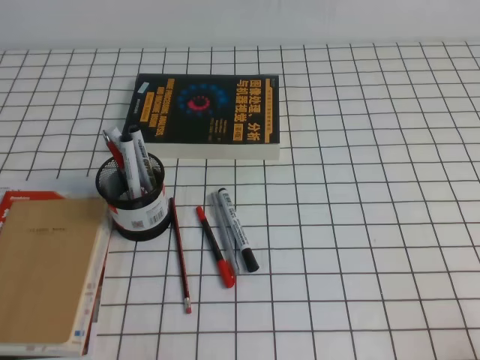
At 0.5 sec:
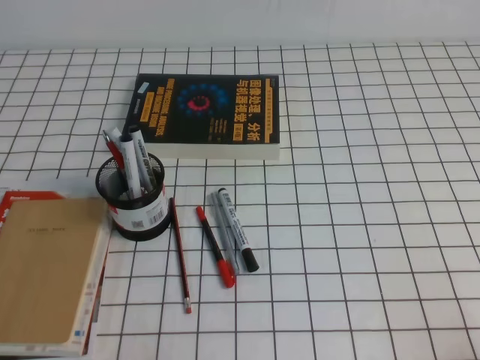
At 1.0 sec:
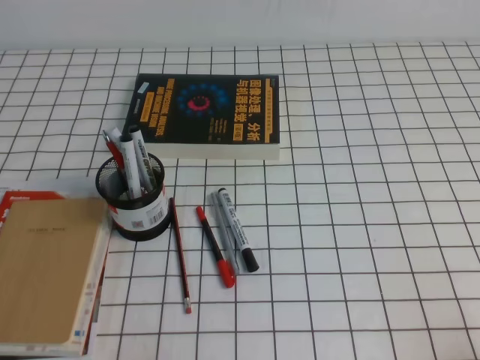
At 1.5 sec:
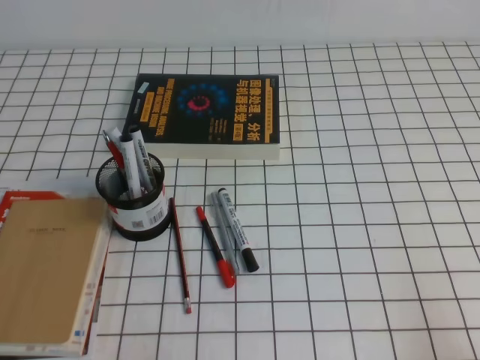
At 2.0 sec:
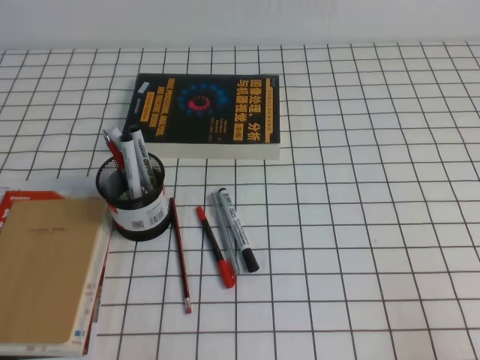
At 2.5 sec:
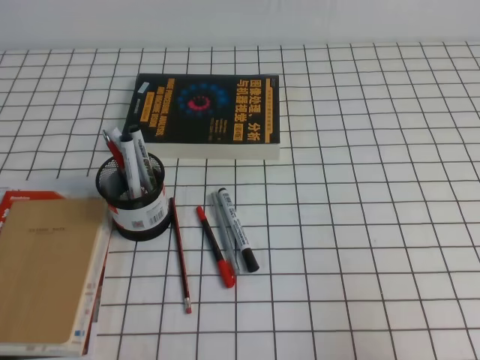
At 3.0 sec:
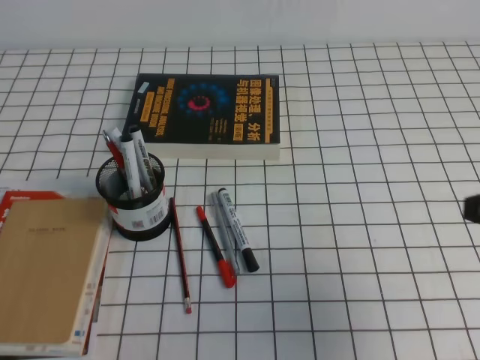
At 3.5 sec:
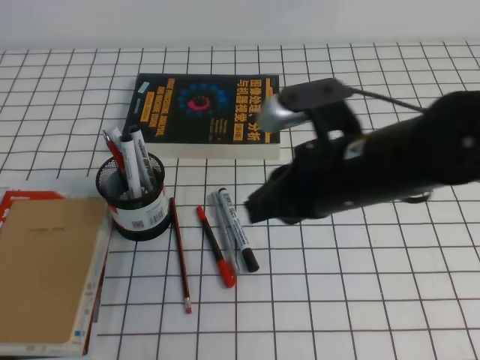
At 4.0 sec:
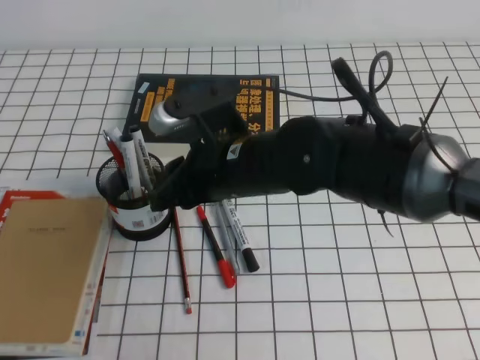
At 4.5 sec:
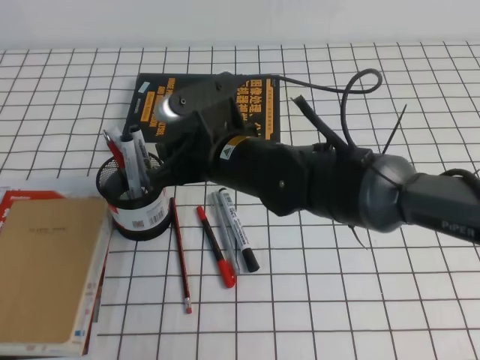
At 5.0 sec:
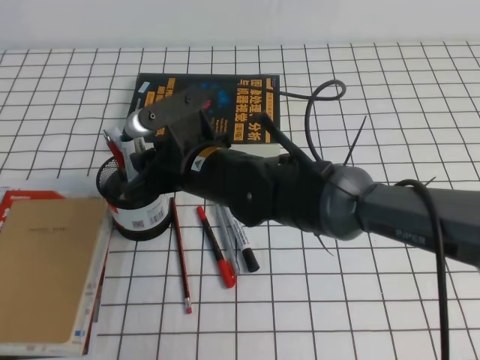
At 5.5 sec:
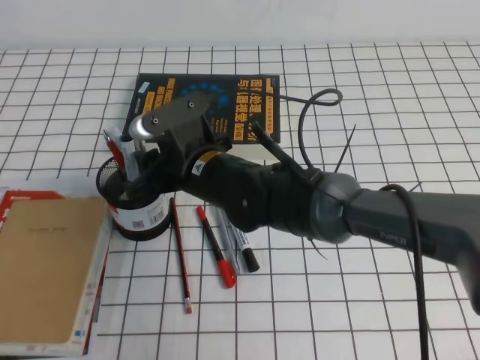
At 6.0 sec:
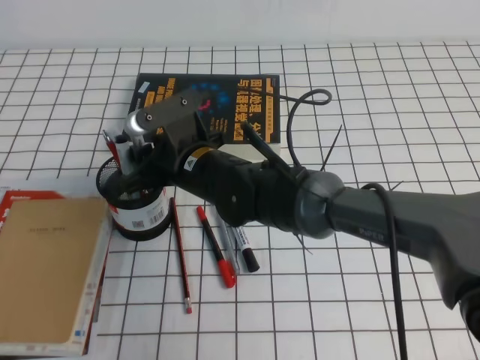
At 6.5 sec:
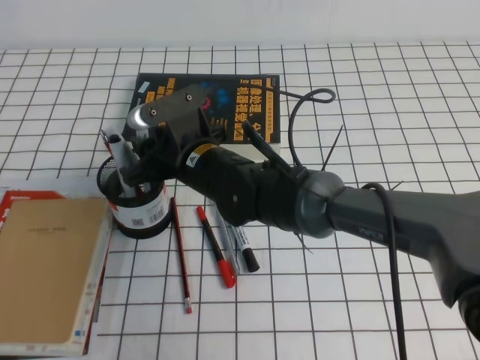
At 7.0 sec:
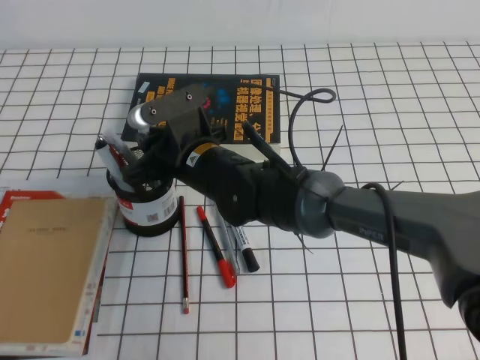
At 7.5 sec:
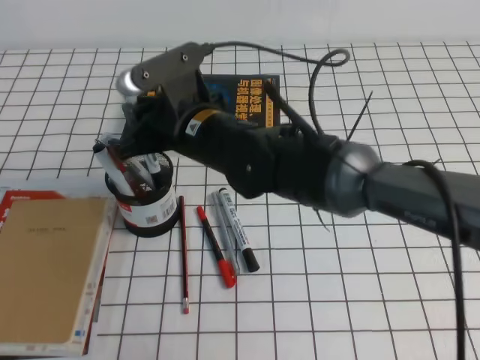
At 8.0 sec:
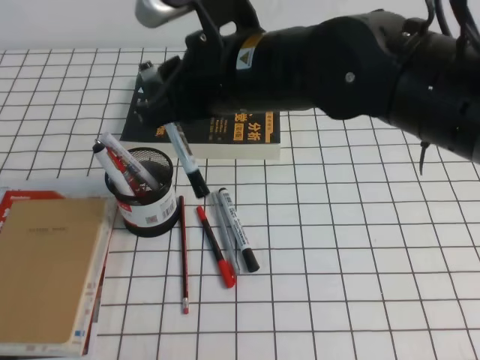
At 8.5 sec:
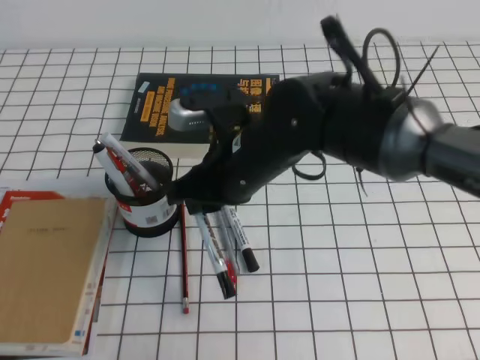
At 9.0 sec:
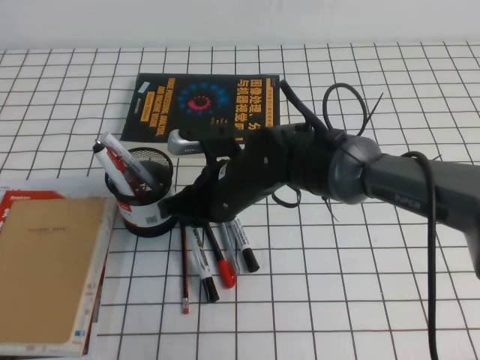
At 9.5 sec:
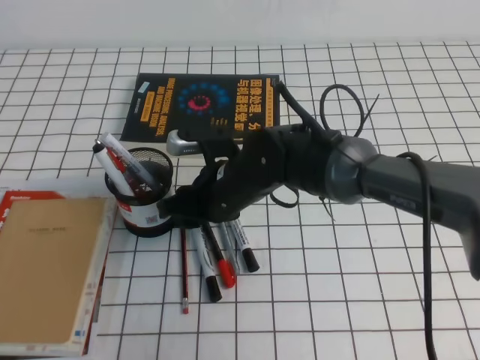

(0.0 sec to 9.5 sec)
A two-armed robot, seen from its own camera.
2.0 sec - 4.0 sec: The right gripper moves to the left and forward, about 40 cm, and opens its fingers.
4.0 sec - 5.5 sec: The right gripper is displaced downward and to the left by roughly 10 cm, and opens.
5.5 sec - 7.5 sec: The right gripper goes some 5 cm upward, and closes.
7.5 sec - 9.5 sec: The right gripper moves downward, approximately 5 cm, and opens up.

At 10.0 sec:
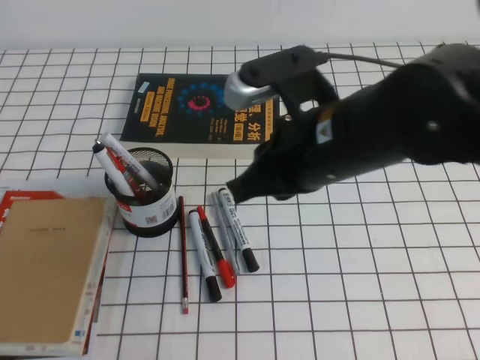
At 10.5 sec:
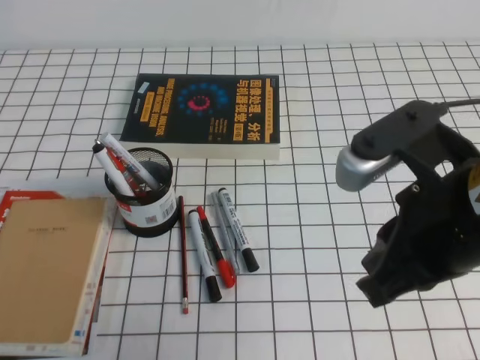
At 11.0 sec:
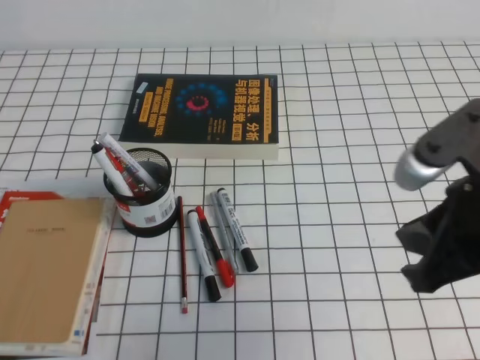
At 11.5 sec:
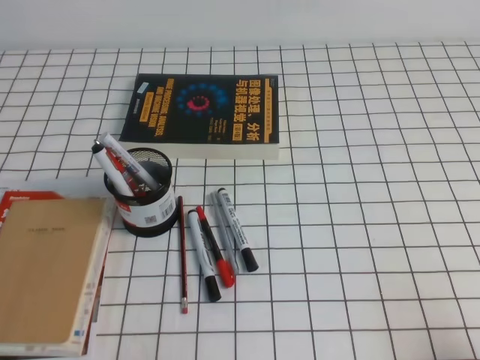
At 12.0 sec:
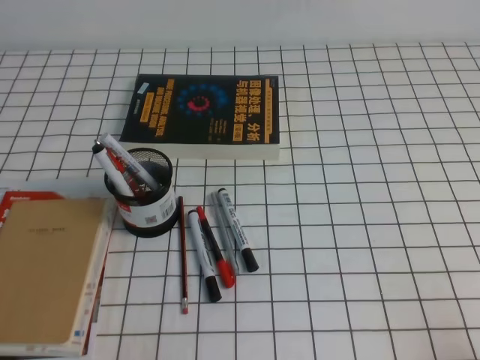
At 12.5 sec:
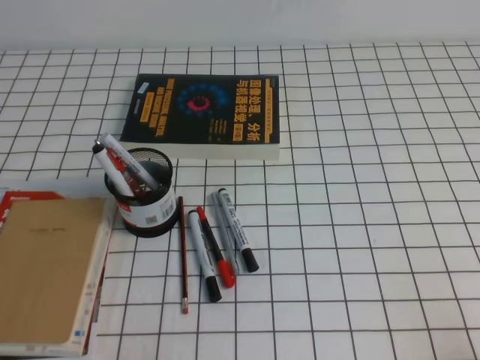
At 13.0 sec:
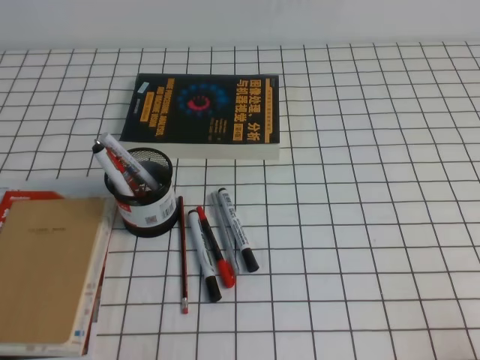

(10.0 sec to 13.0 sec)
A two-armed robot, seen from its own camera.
Step, 10.0 sec - 13.0 sec: Pick up the pen from the pen holder.
10.0 sec - 11.5 sec: The right gripper heads to the right, backward and downward, covering approximately 30 cm.
11.5 sec - 13.0 sec: The right gripper moves about 5 cm.
